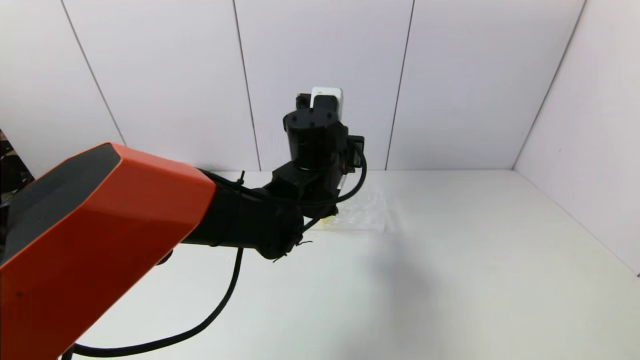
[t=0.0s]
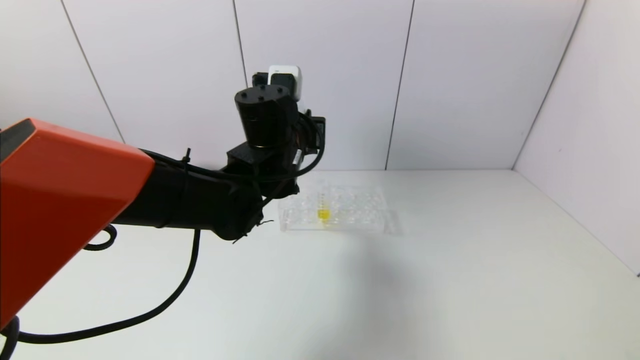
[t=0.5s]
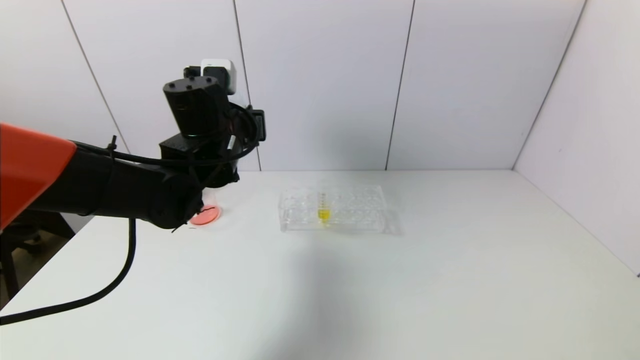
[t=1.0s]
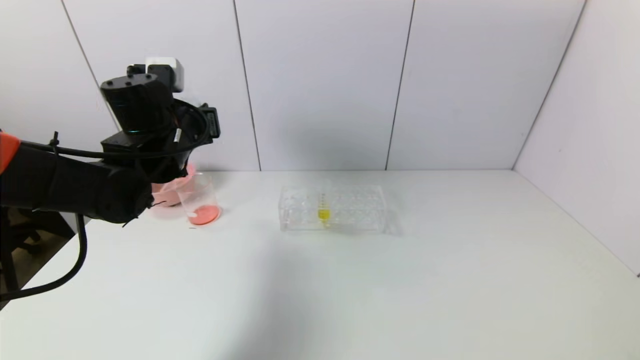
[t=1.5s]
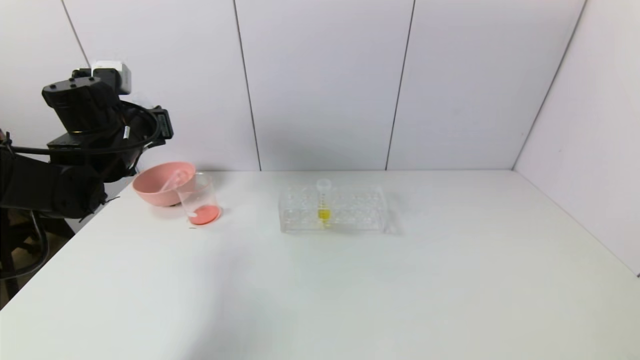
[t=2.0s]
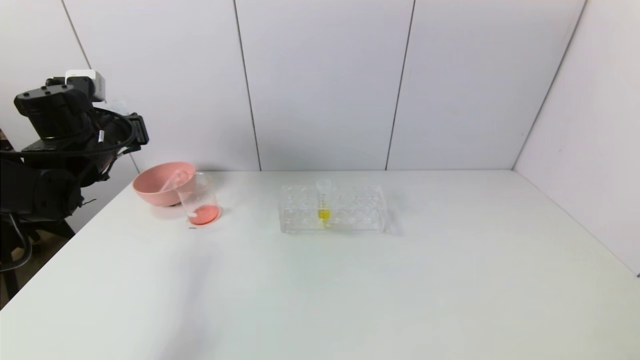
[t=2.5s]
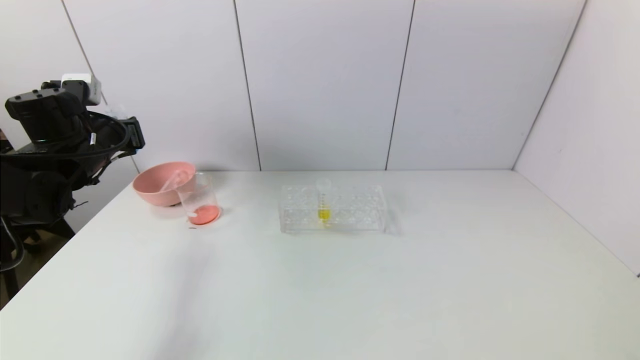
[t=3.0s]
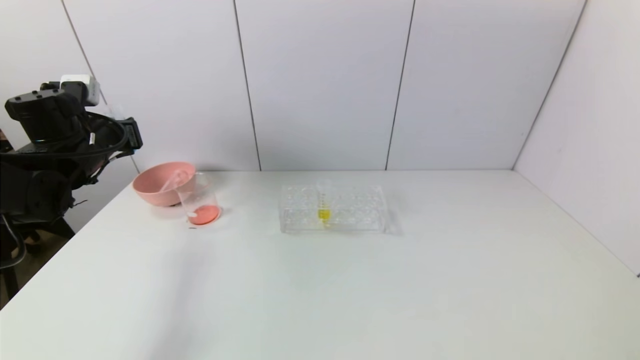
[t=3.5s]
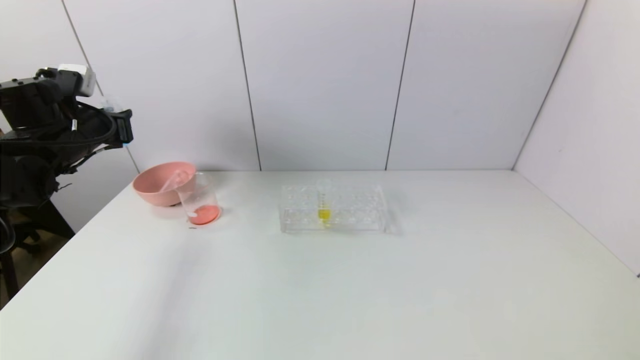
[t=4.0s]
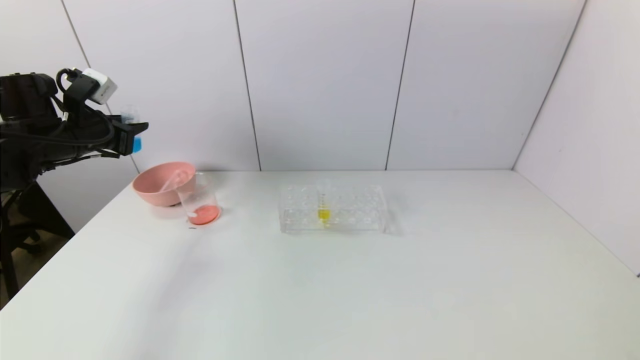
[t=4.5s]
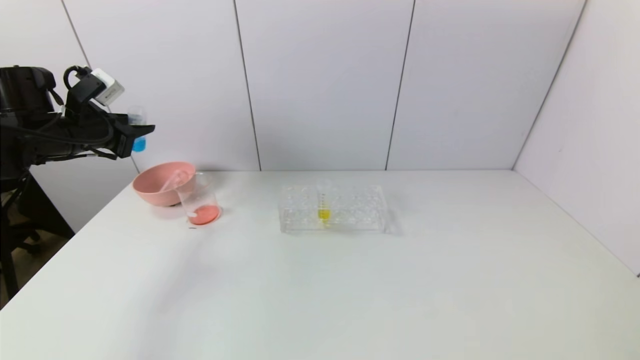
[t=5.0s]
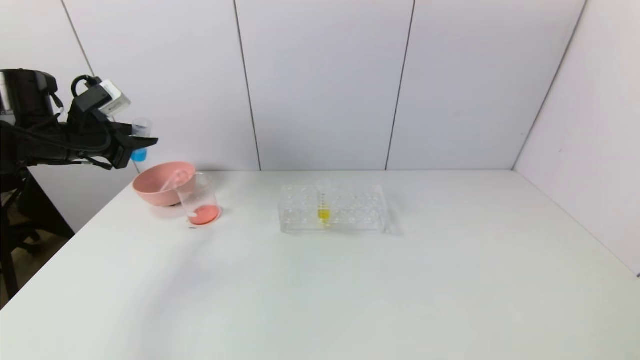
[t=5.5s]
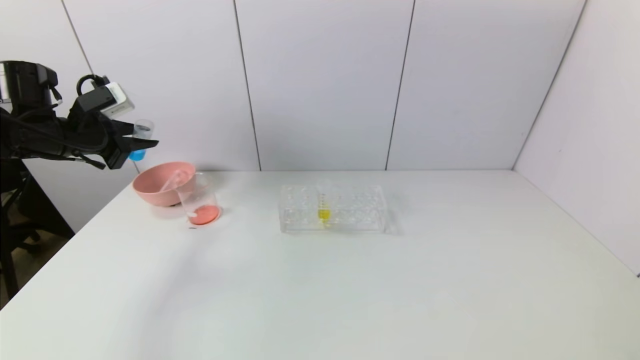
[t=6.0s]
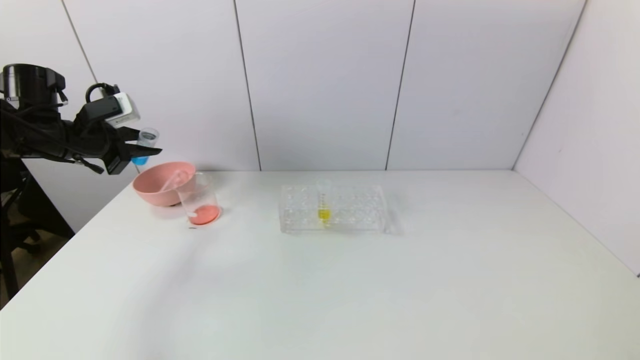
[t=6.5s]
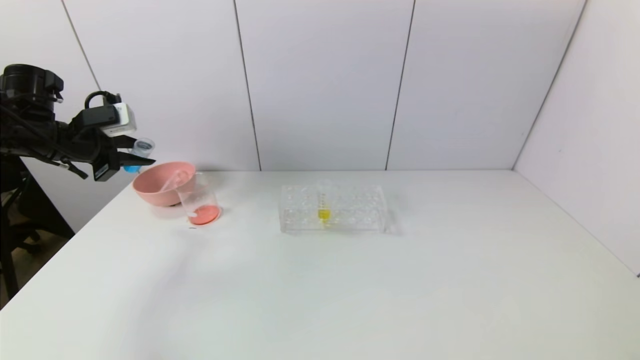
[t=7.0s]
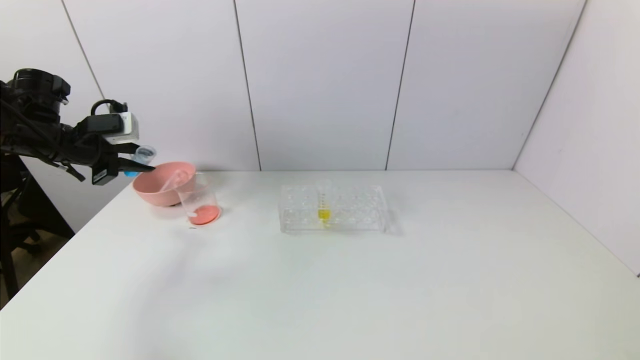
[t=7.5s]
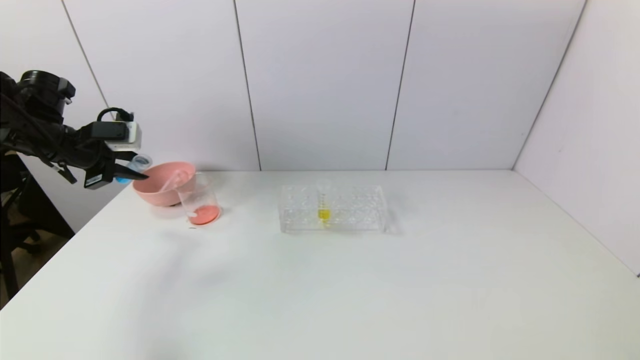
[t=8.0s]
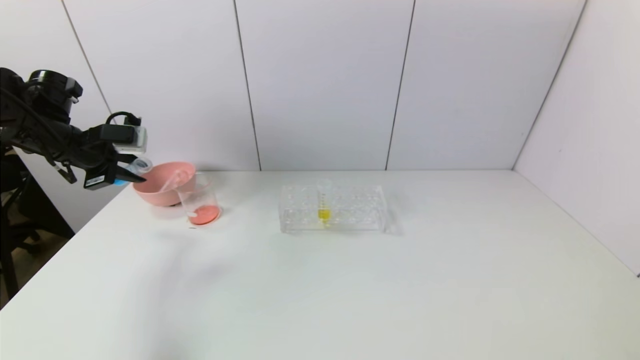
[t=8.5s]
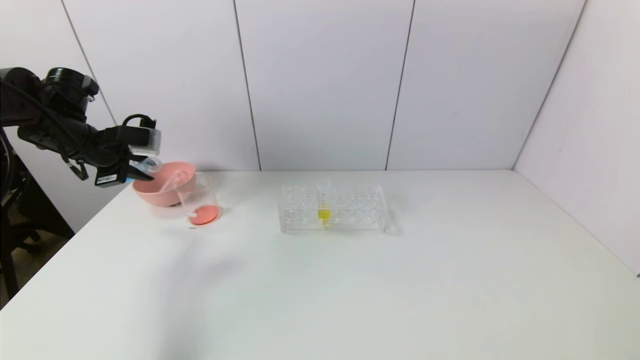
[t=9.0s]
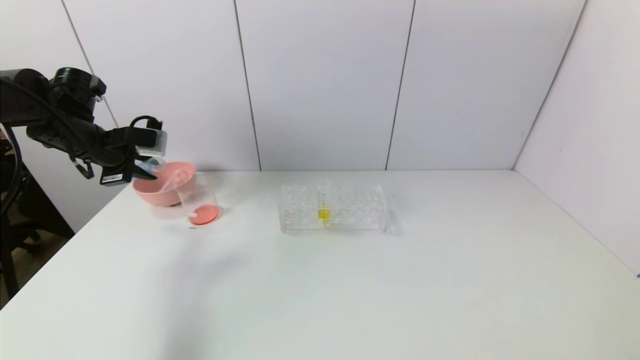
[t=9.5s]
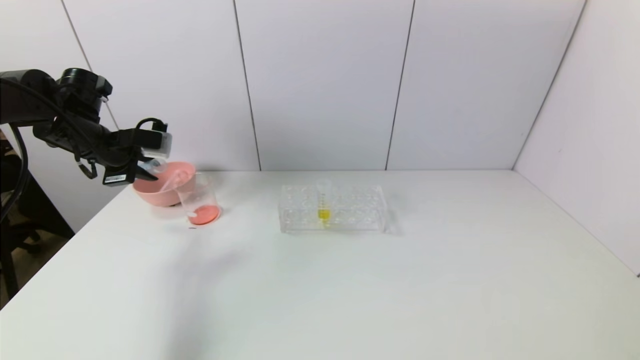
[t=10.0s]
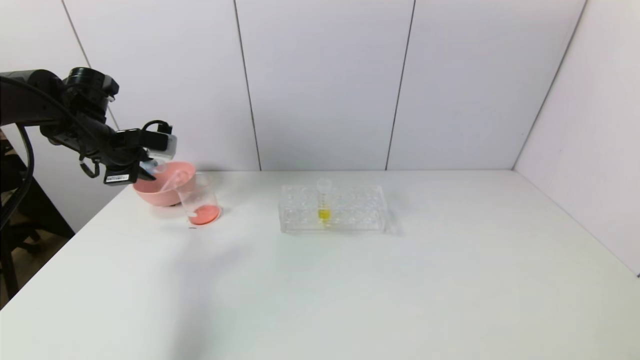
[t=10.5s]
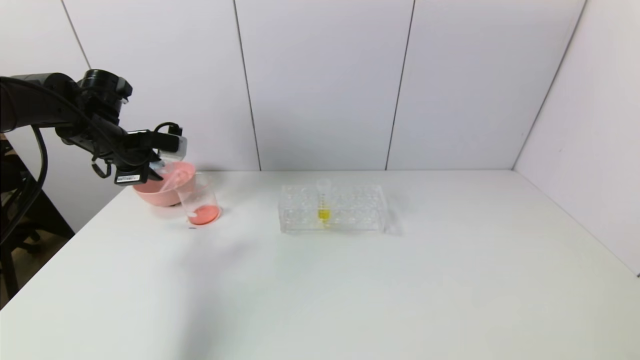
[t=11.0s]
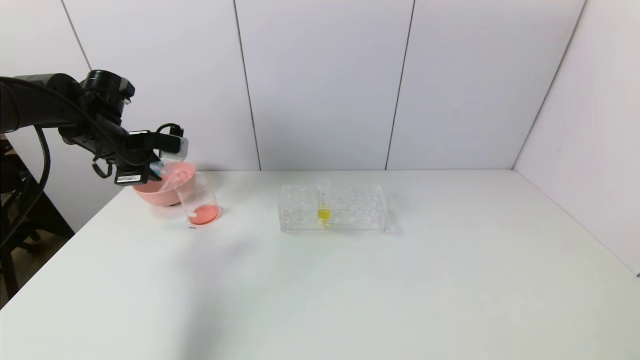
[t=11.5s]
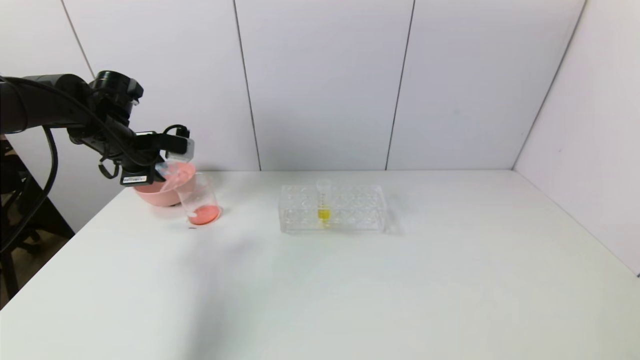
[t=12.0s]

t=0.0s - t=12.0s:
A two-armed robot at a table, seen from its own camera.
Task of the whole recording: pick up the test tube with red pigment and the test tube with blue pigment by grippers and pour them into the container.
t=0.0s - t=2.0s: The left gripper is displaced to the left by about 30 cm.
t=2.0s - t=4.0s: The left gripper moves to the left, some 10 cm.
t=8.0s - t=10.0s: The grippers move only a little.
t=10.0s - t=12.0s: The grippers stay close to where they were, moving slightly.

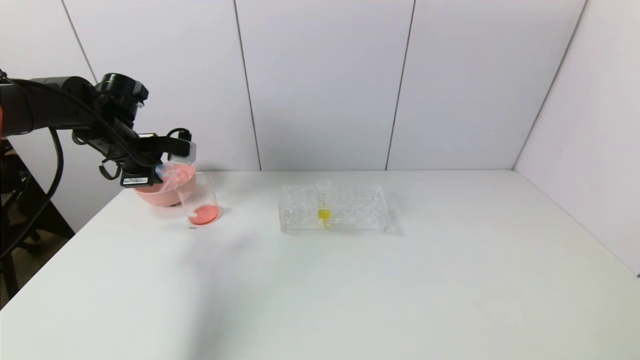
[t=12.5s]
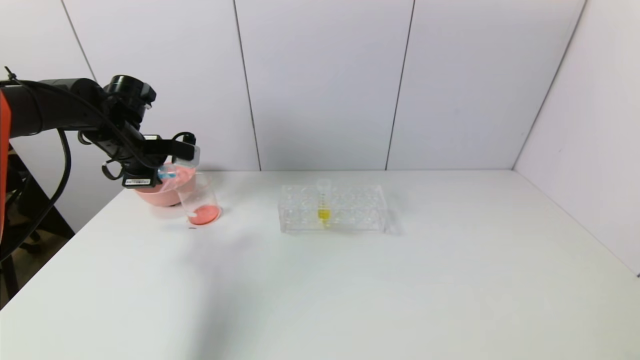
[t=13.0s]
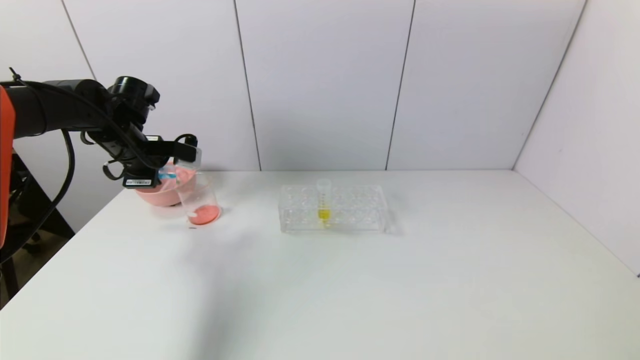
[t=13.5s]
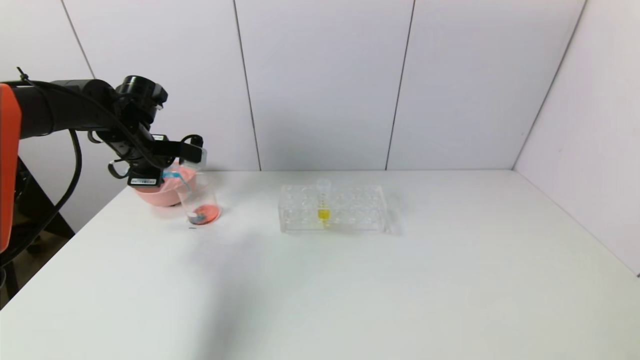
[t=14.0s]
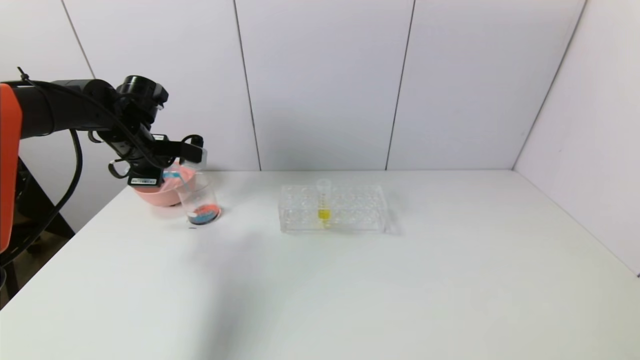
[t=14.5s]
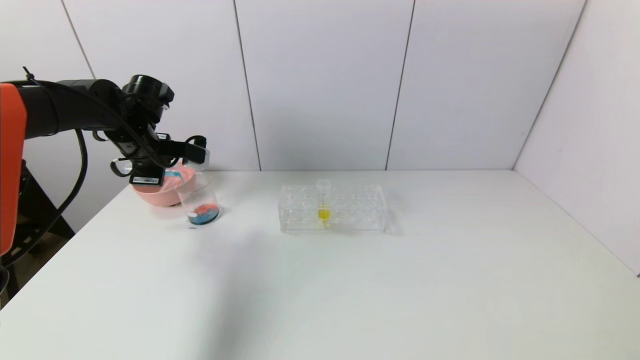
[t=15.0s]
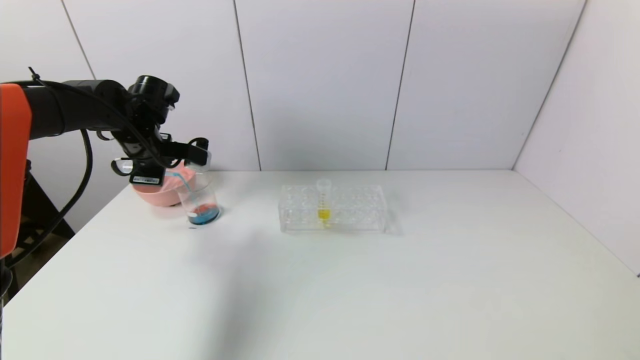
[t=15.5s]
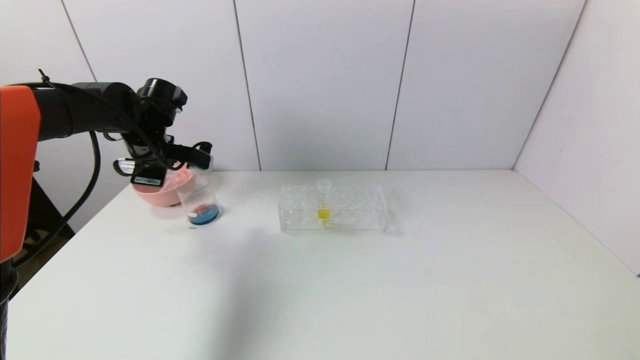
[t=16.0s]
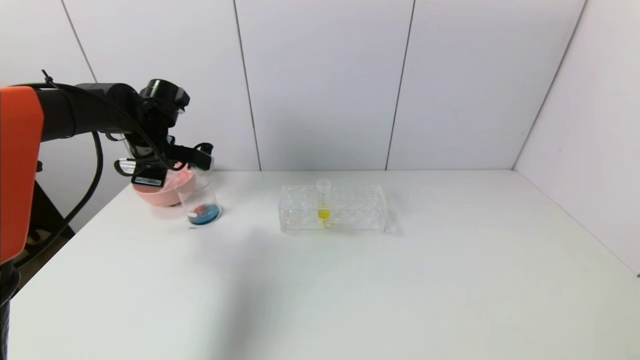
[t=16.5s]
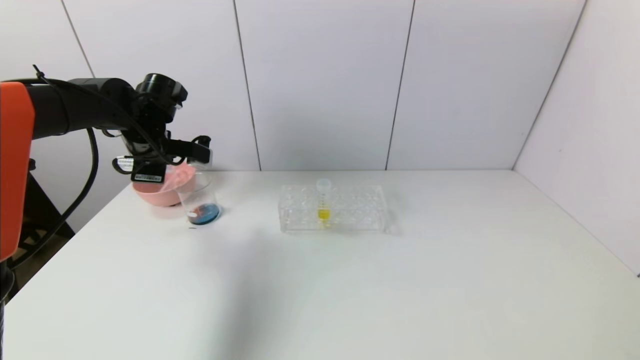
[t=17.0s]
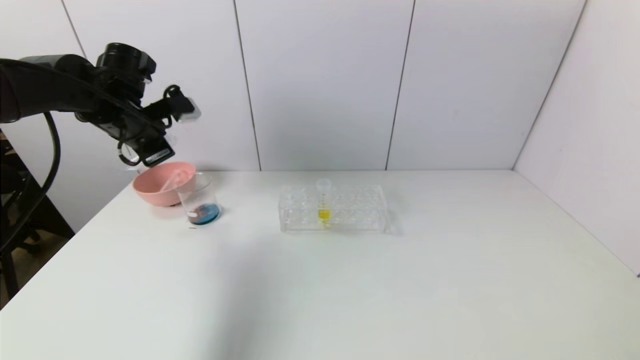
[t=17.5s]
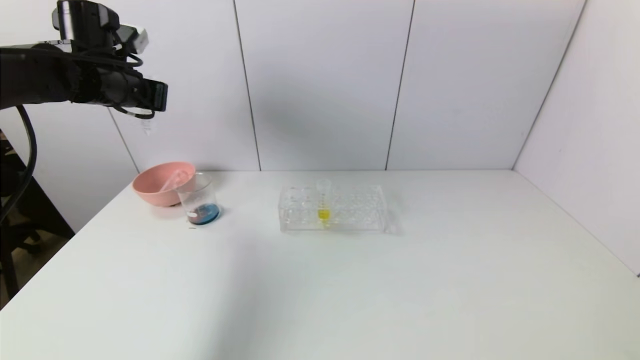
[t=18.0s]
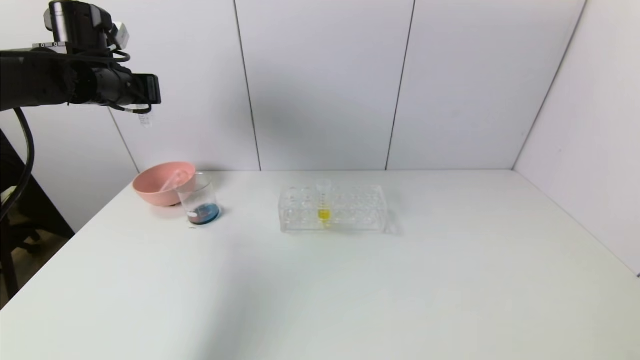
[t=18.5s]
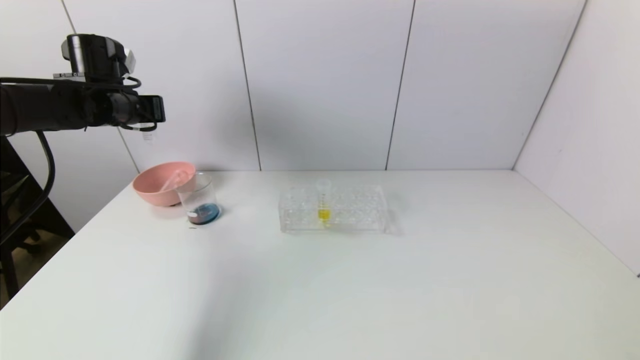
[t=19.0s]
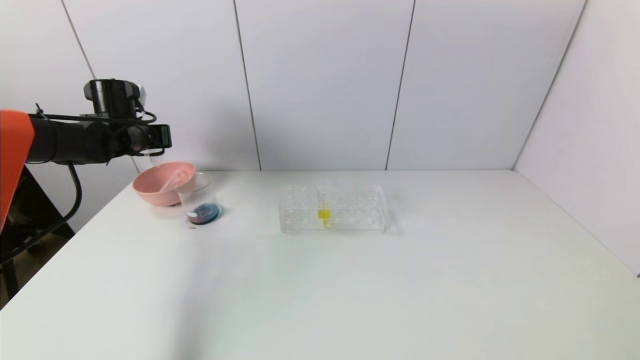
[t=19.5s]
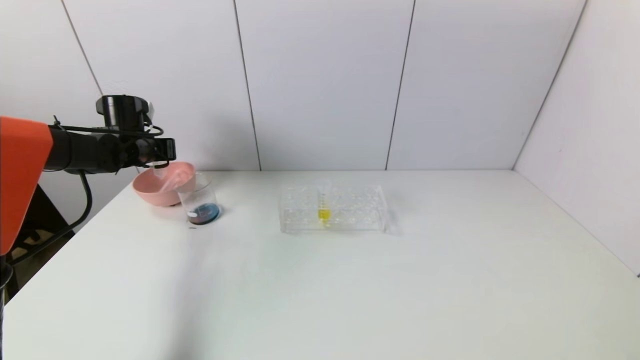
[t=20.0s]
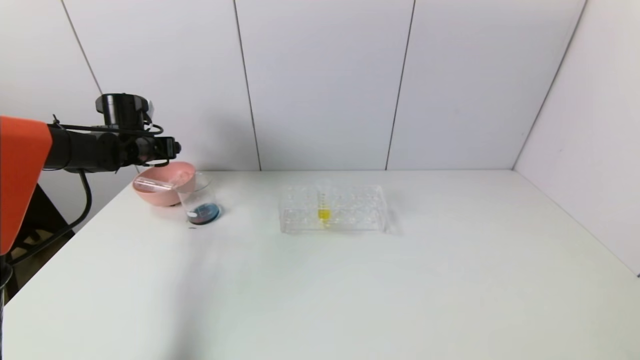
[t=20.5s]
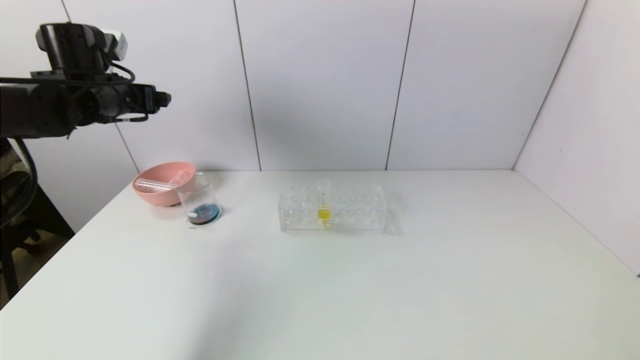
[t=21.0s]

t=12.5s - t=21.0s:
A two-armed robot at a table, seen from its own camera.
Task of the whole recording: pick up the test tube with red pigment and the test tube with blue pigment by grippers and pour them into the container.
Step, t=12.5s - t=17.5s: Pour the blue reagent into the graduated cylinder with the left gripper.
t=12.5s - t=14.5s: The grippers move only a little.
t=14.5s - t=16.5s: There are only small adjustments of the grippers.
t=16.5s - t=19.0s: The left gripper travels upward and to the left by approximately 10 cm.
t=19.0s - t=21.0s: The left gripper reaches about 10 cm downward, then returns, and opens up.
